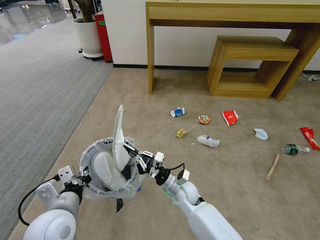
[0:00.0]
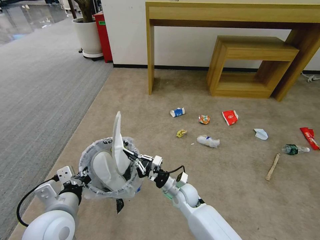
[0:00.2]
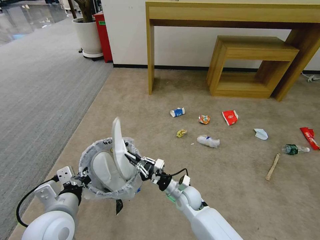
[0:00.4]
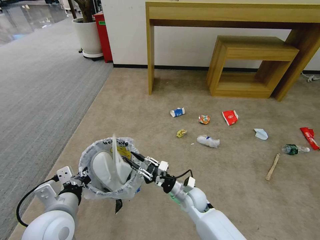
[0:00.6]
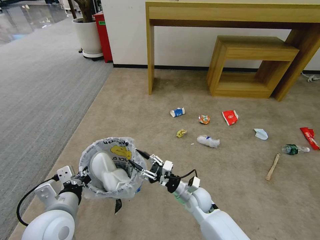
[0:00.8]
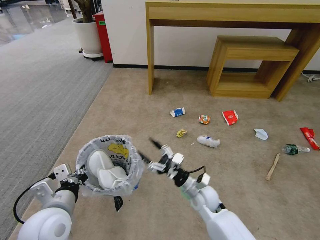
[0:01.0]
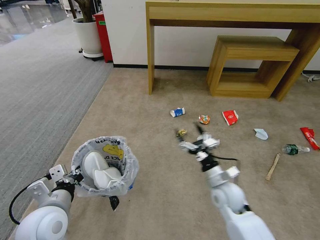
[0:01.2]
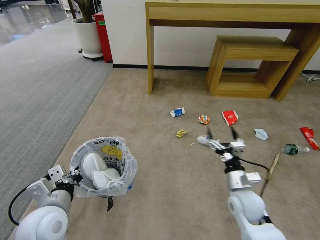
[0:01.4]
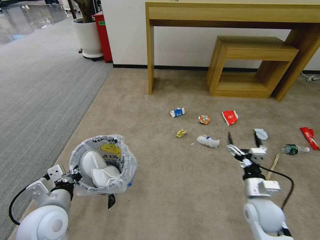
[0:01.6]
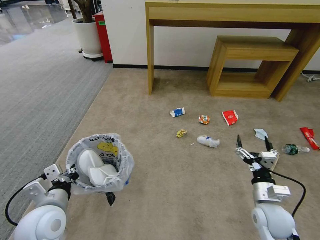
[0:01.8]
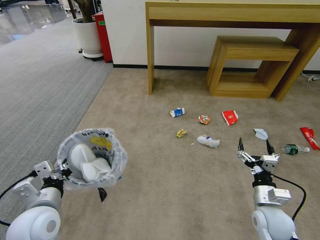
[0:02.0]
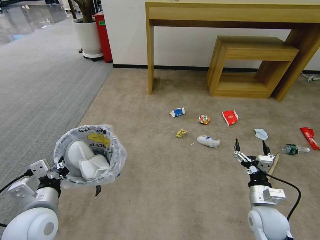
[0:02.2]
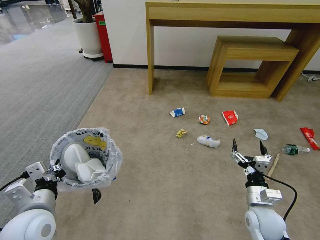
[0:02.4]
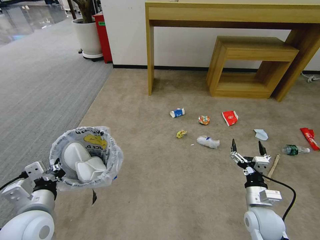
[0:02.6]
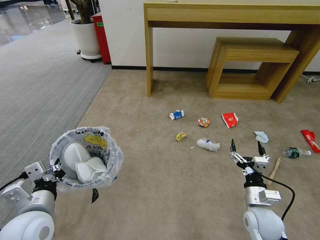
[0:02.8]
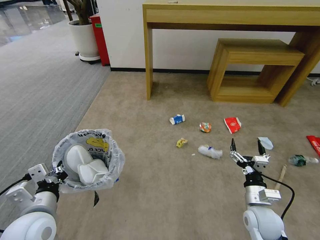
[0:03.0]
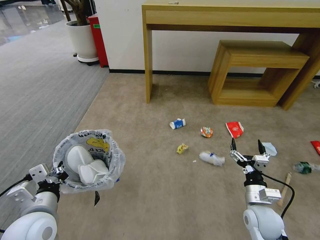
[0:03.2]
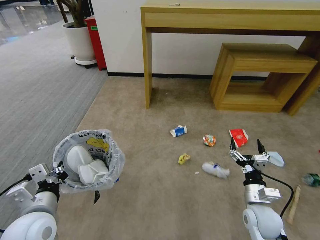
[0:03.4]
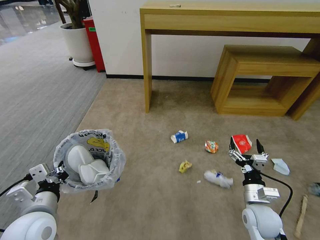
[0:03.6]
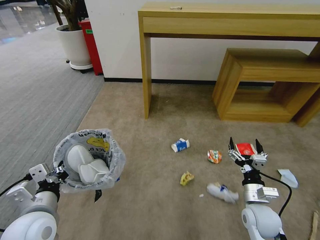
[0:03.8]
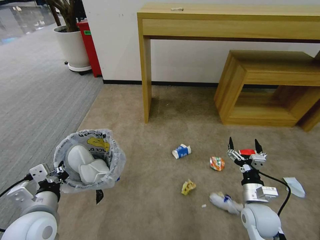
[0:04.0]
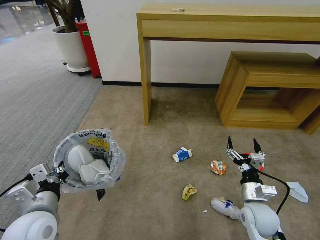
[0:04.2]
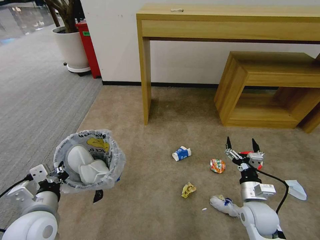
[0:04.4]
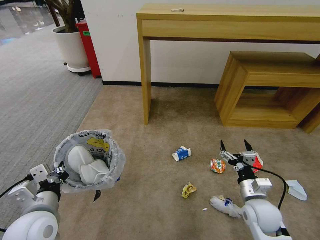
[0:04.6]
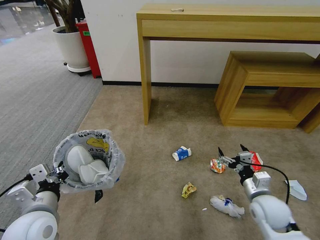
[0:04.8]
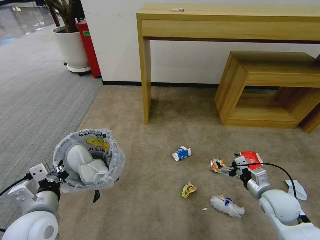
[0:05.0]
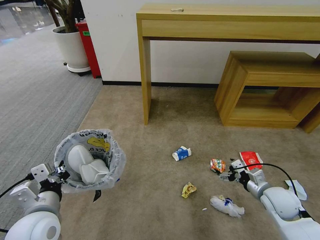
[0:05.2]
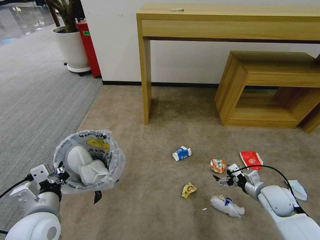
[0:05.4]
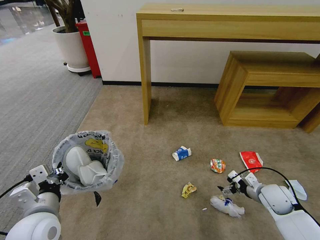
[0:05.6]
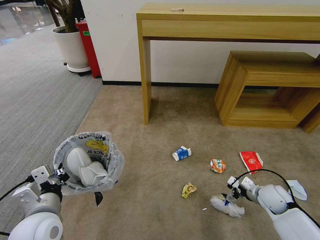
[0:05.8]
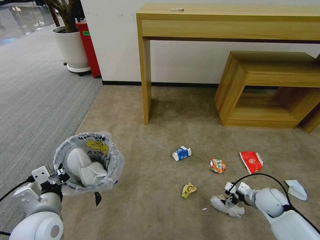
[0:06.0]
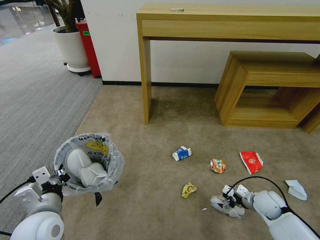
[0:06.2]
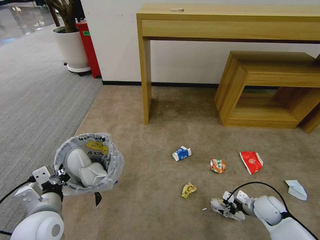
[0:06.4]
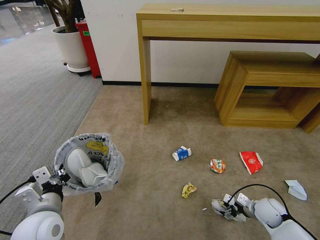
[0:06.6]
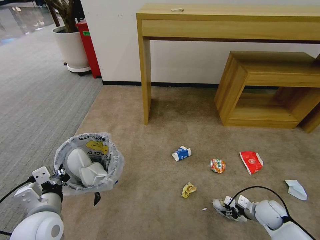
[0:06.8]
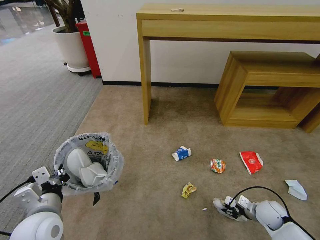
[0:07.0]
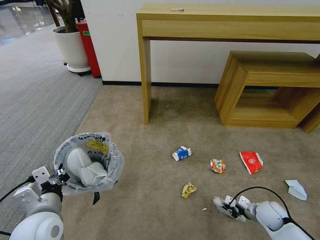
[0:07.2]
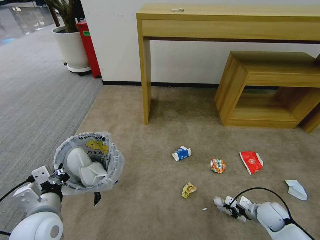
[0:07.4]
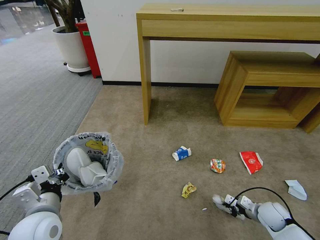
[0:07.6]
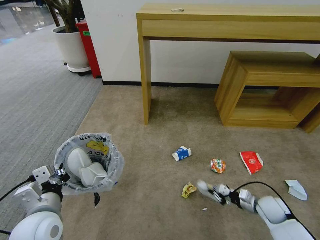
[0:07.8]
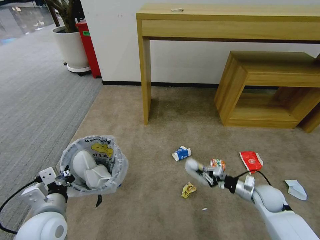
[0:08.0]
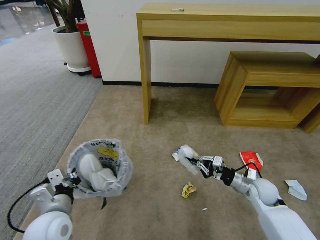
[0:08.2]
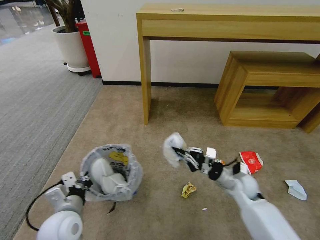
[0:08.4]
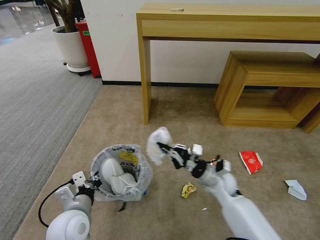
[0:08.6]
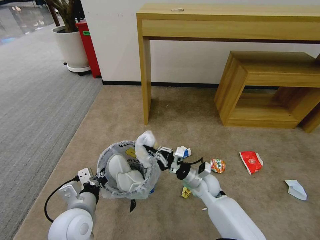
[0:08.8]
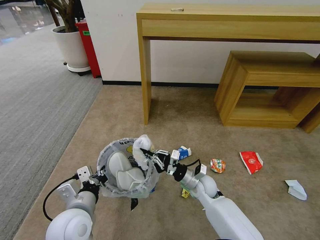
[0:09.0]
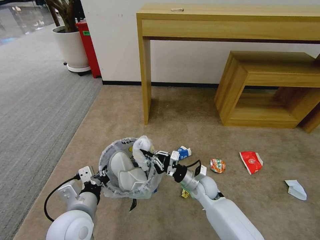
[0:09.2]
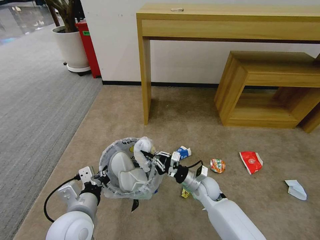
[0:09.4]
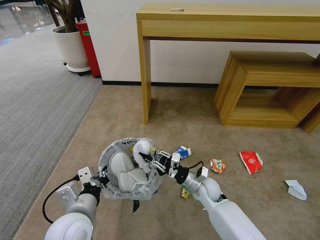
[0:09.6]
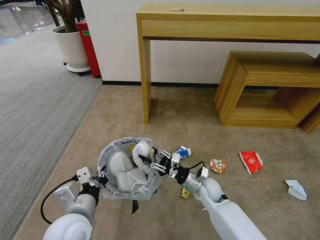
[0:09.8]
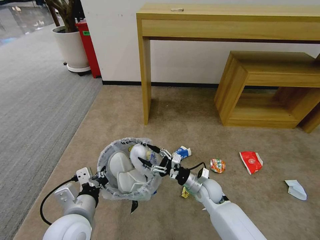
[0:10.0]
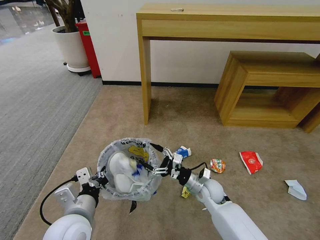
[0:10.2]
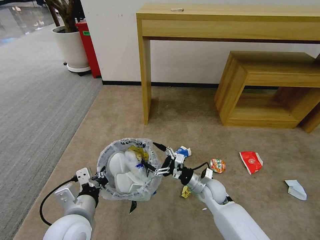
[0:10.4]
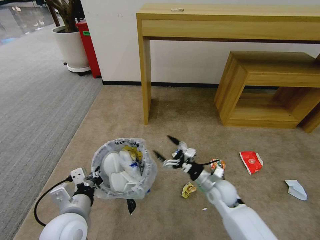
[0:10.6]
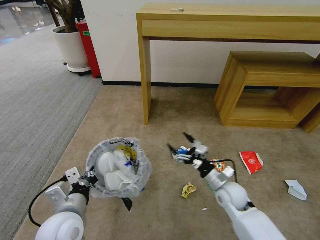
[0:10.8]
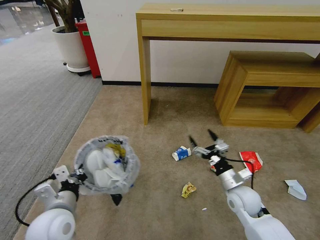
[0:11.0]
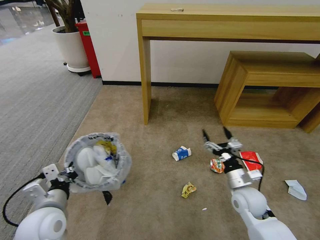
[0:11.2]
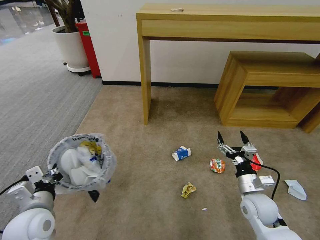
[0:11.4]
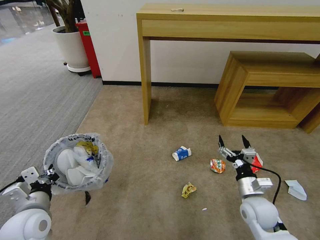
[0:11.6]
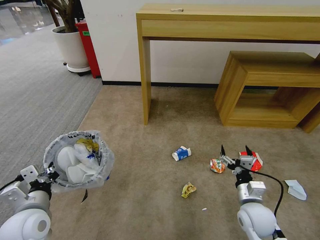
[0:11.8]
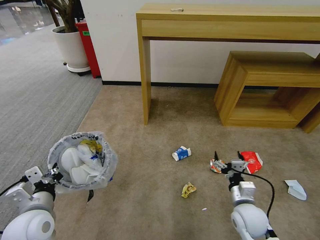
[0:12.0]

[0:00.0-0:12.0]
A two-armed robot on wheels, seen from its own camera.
Task of the whole recording: Pick up the trash bin and place the garbage on the floor into it.
0:00.0 to 0:01.6: The right gripper shifts some 20 cm to the right, and opens its fingers.
0:04.4 to 0:06.0: The right gripper is displaced to the right, forward and downward by some 15 cm.
0:06.0 to 0:07.6: The right gripper changes place by approximately 5 cm, and closes.
0:07.6 to 0:09.0: The right gripper heads to the left, covering approximately 25 cm. Meanwhile the left gripper is displaced to the right by approximately 5 cm.
0:09.0 to 0:10.4: The right gripper opens.
0:10.4 to 0:12.0: The left gripper shifts approximately 10 cm to the left. The right gripper is displaced backward and to the right by about 15 cm.

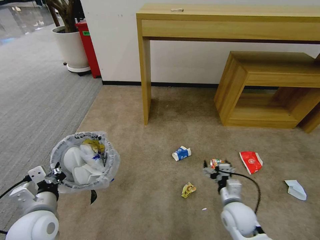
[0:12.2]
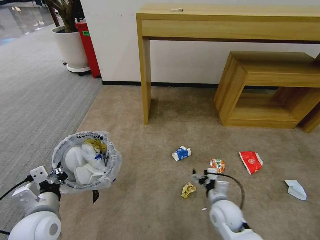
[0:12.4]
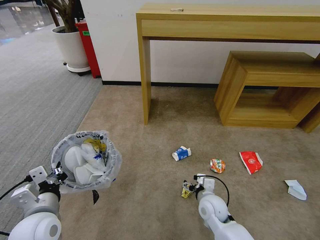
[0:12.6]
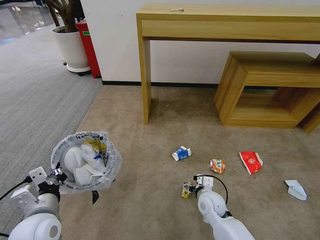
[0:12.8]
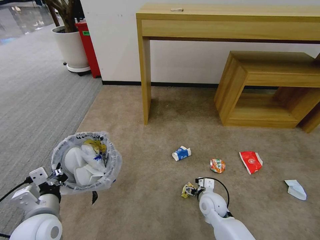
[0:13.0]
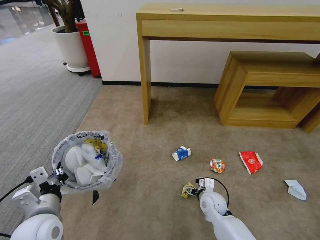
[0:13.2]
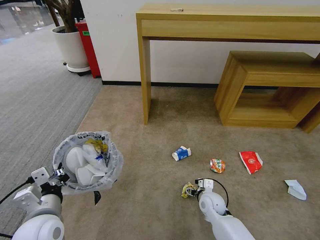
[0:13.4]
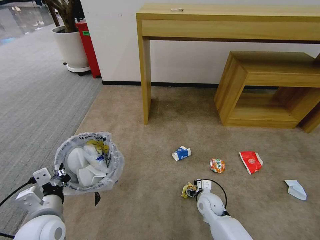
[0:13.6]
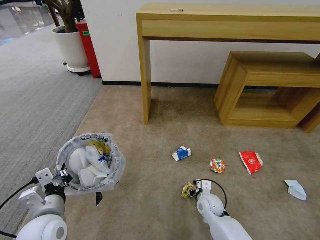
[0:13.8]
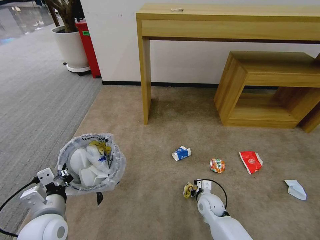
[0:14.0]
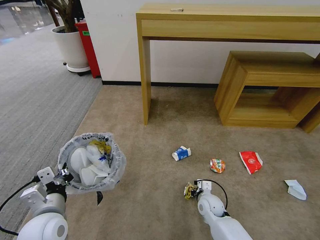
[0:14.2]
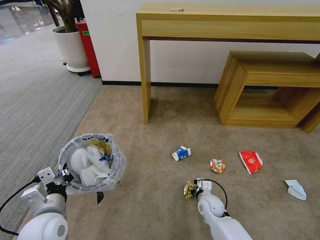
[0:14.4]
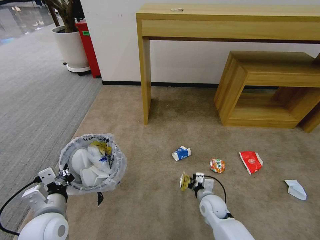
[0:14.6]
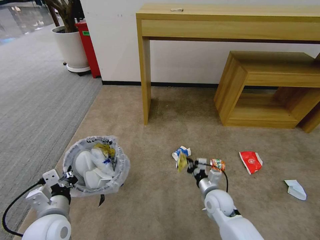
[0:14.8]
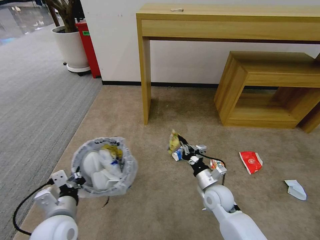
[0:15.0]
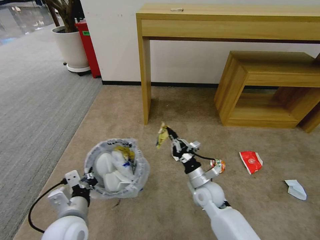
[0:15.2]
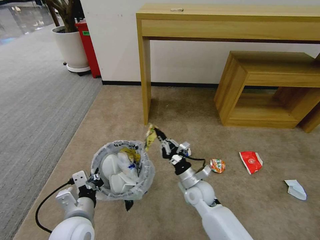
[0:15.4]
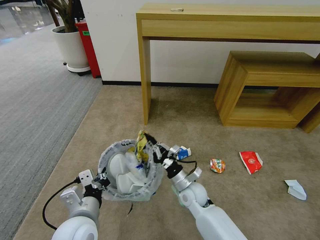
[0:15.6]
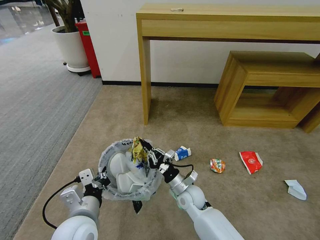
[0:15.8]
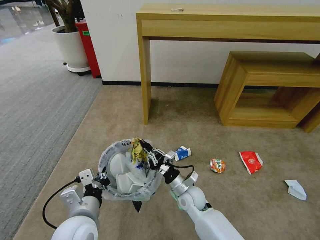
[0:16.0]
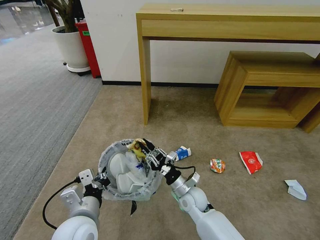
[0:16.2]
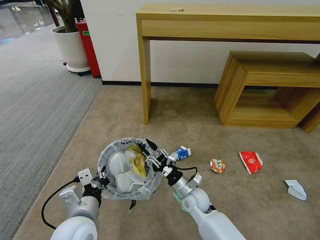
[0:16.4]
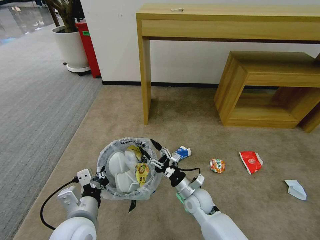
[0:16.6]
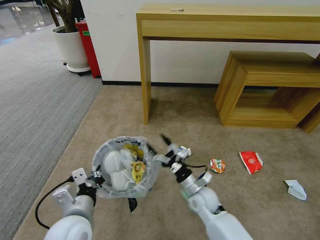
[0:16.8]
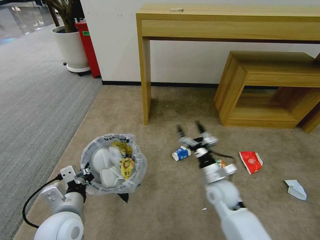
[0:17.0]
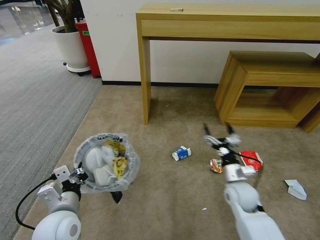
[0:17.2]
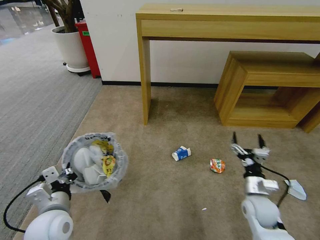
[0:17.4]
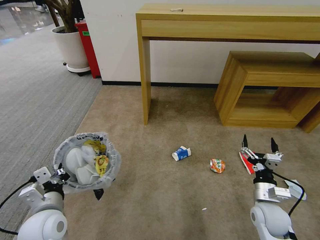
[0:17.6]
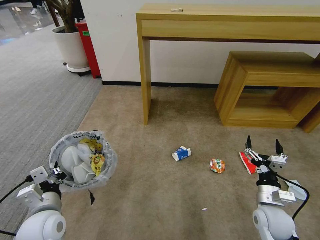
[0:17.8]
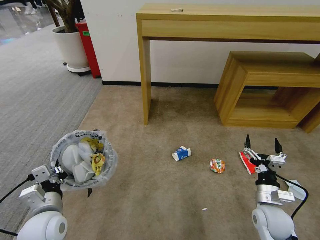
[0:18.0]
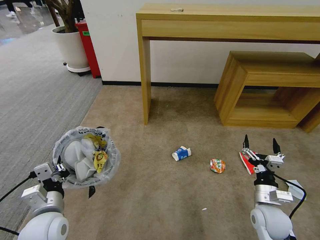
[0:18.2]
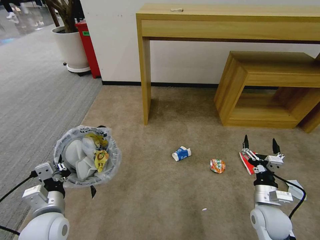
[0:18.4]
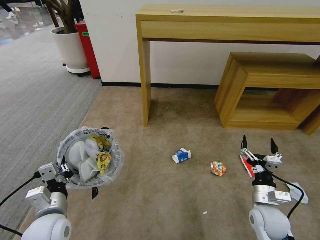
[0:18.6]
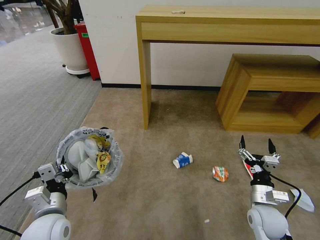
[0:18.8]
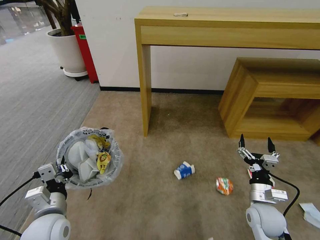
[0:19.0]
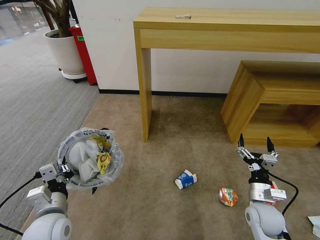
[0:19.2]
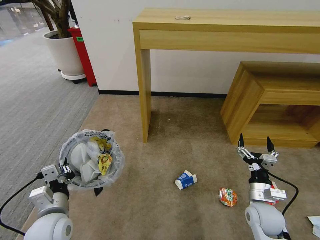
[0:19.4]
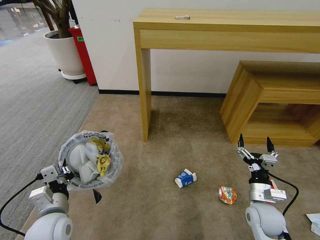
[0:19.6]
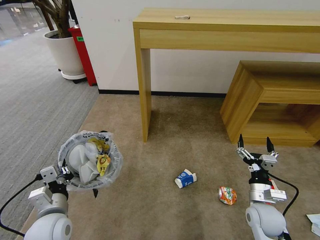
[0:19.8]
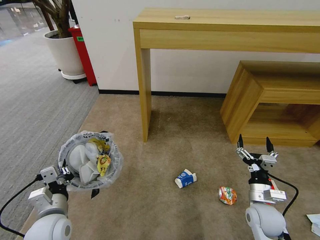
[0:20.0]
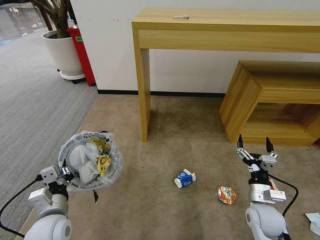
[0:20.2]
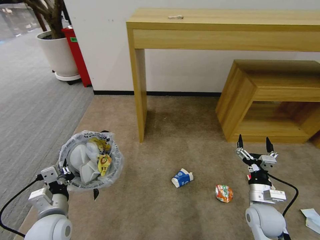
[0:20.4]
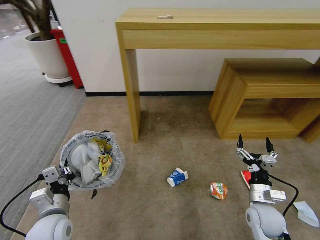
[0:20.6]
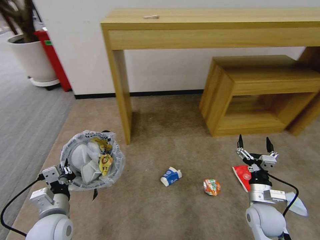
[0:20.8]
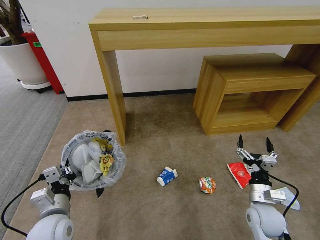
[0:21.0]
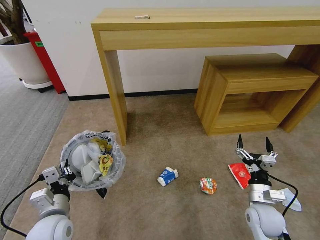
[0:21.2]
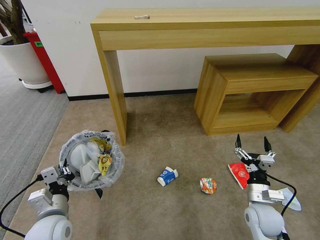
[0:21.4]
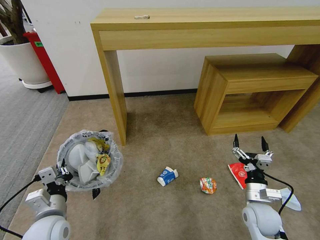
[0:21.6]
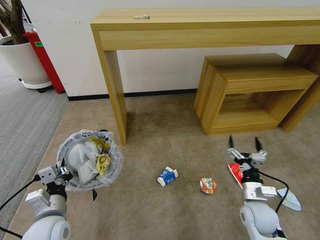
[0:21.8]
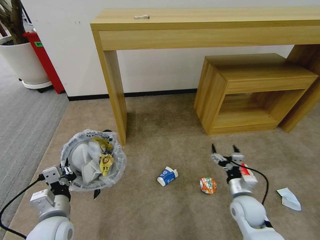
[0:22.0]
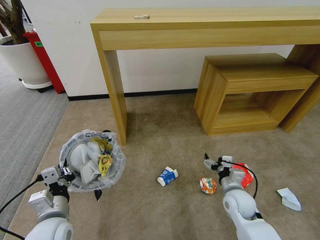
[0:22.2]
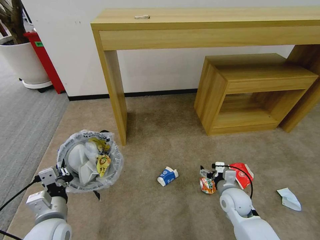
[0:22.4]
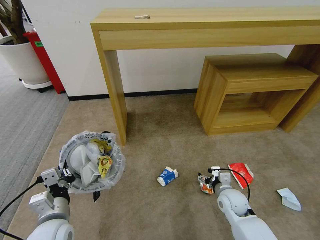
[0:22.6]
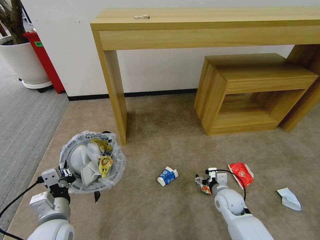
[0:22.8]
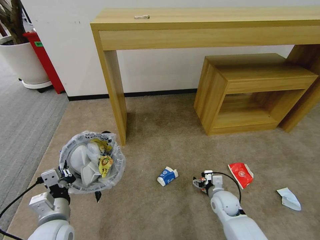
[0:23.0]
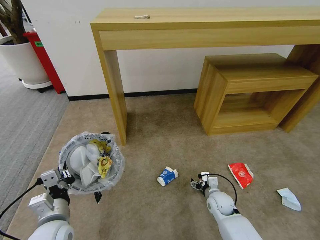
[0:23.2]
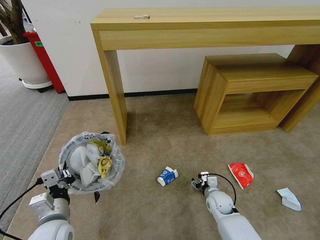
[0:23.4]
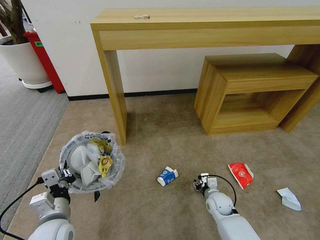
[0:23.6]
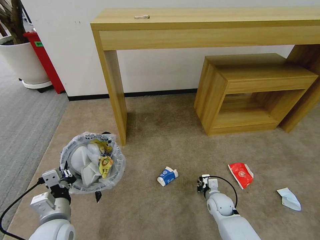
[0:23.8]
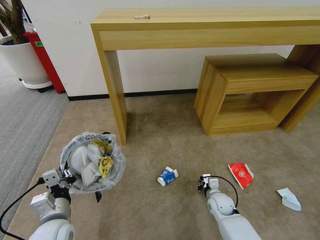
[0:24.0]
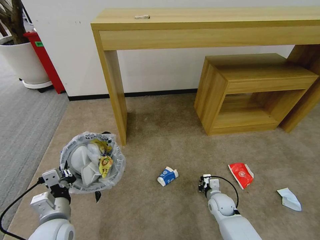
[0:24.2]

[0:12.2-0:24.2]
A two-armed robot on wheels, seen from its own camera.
Task of the whole recording: Pick up the trash bin and place the garbage on the floor into it.
0:12.2 to 0:13.8: The right gripper moves downward, forward and to the left, about 10 cm, and closes up.
0:13.8 to 0:15.2: The right gripper shifts roughly 10 cm upward, and closes its fingers. Meanwhile the left gripper moves to the right, about 5 cm.
0:15.2 to 0:16.6: The right gripper shifts by some 5 cm, and opens.
0:16.6 to 0:18.2: The right gripper is displaced to the right by some 20 cm, while the left gripper heads to the left, covering approximately 10 cm.
0:21.2 to 0:22.6: The right gripper shifts approximately 10 cm to the left and forward.
0:22.6 to 0:24.2: The right gripper moves downward, some 10 cm, and closes up.
